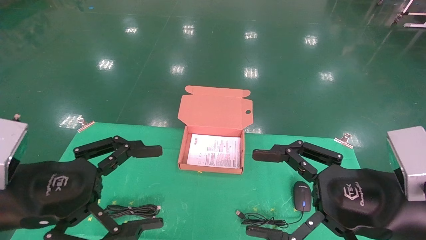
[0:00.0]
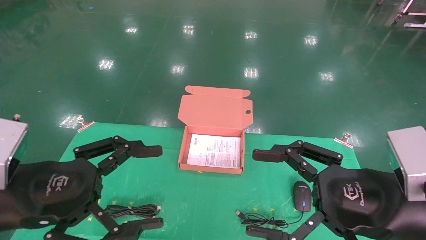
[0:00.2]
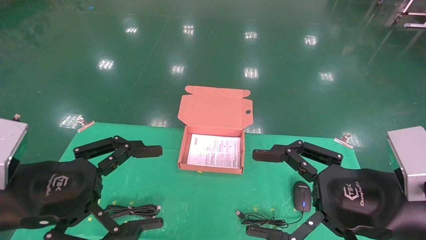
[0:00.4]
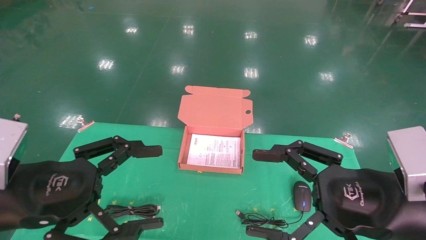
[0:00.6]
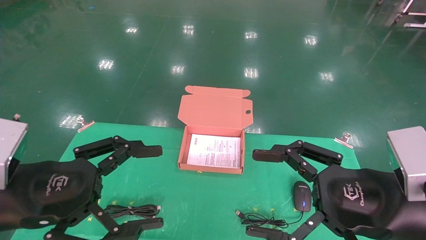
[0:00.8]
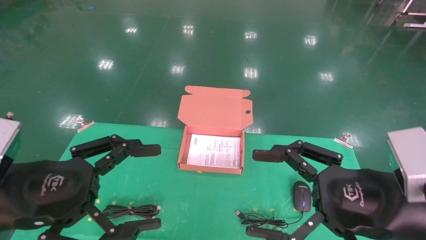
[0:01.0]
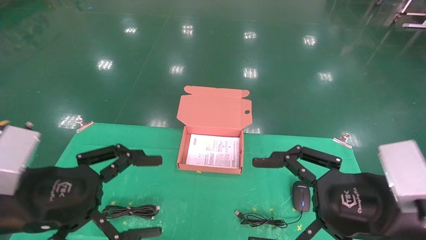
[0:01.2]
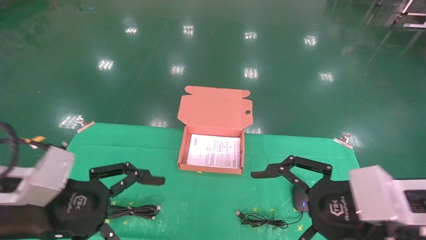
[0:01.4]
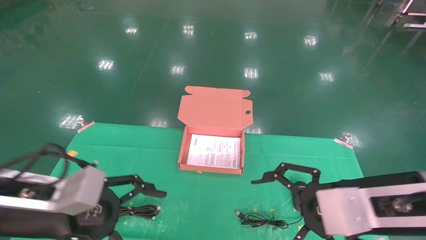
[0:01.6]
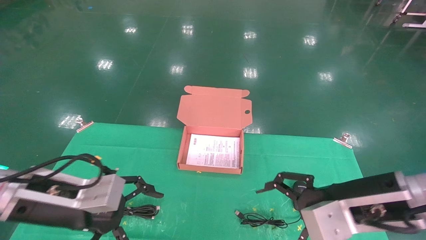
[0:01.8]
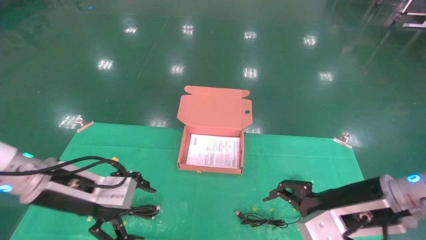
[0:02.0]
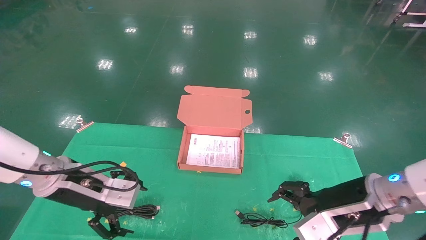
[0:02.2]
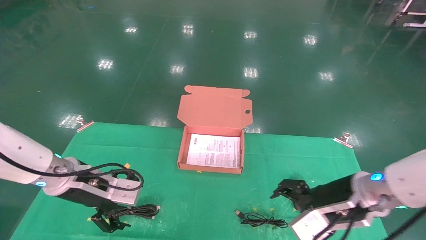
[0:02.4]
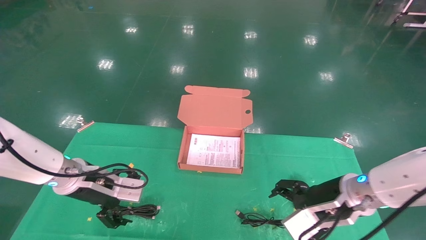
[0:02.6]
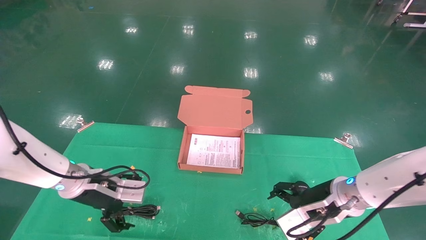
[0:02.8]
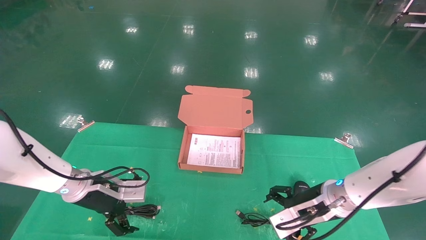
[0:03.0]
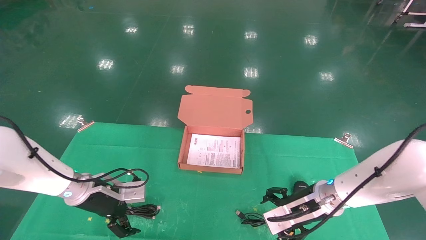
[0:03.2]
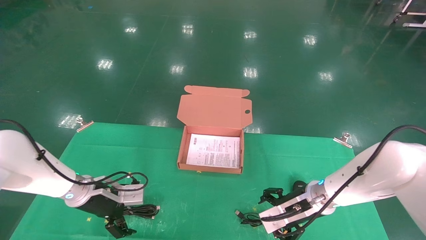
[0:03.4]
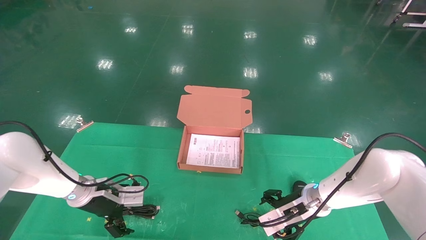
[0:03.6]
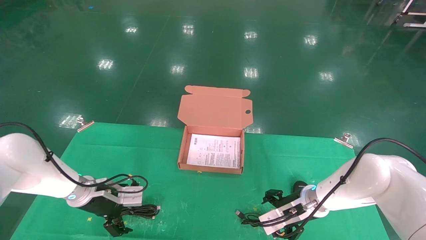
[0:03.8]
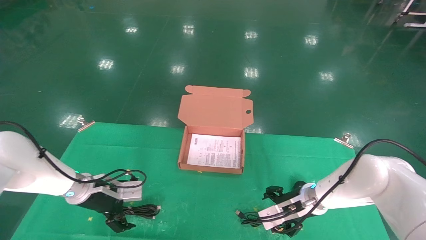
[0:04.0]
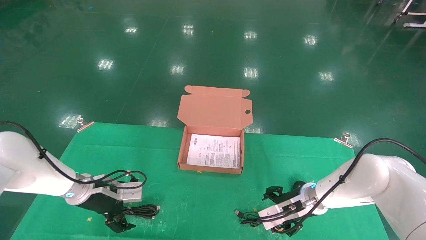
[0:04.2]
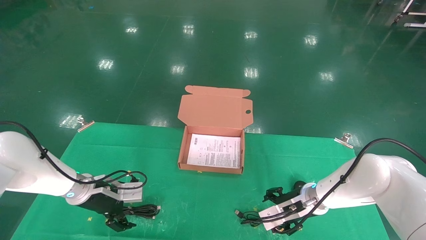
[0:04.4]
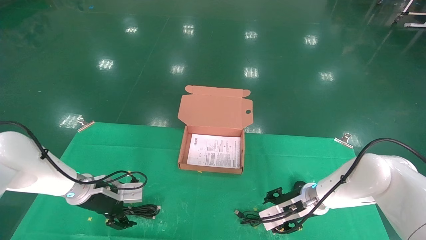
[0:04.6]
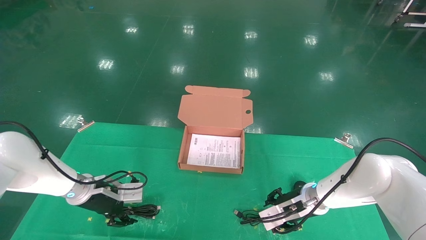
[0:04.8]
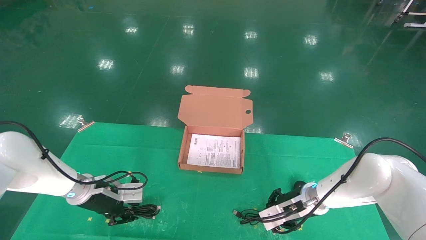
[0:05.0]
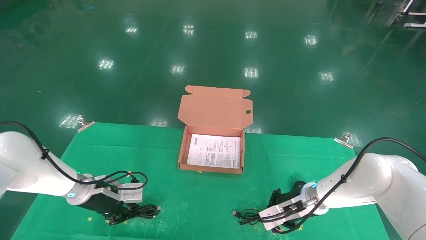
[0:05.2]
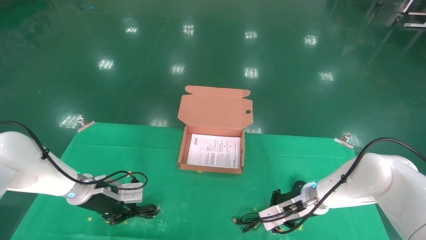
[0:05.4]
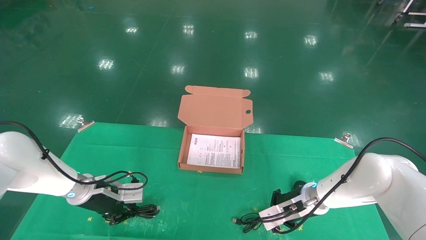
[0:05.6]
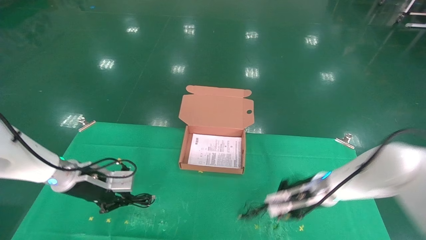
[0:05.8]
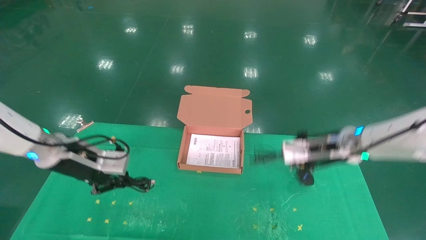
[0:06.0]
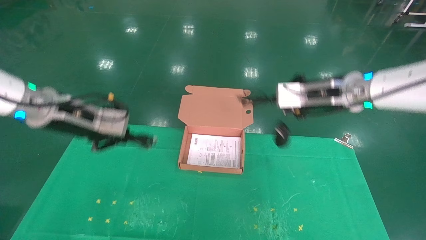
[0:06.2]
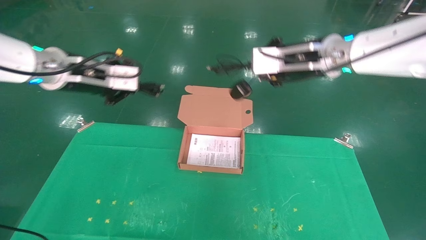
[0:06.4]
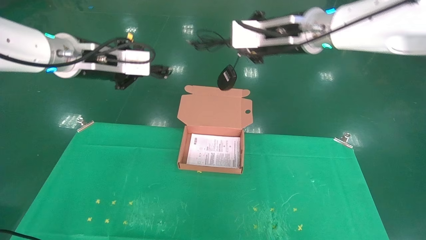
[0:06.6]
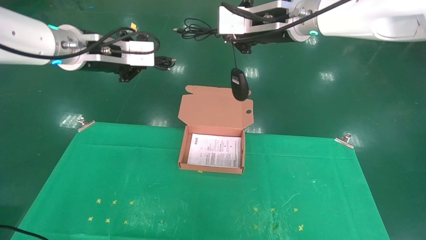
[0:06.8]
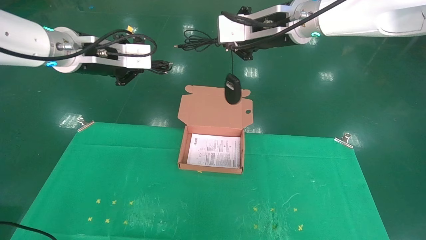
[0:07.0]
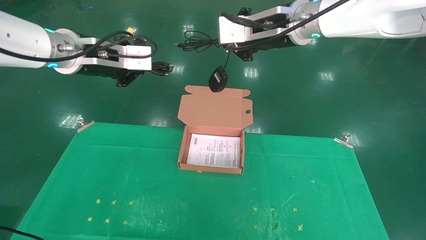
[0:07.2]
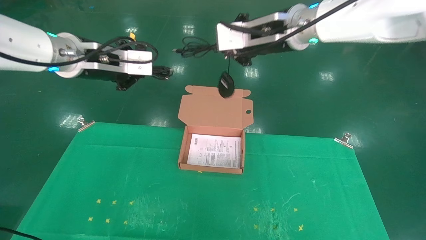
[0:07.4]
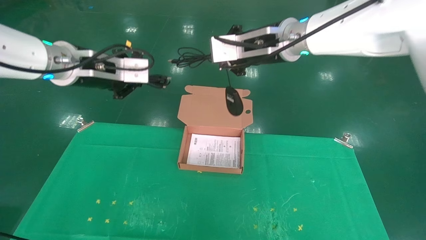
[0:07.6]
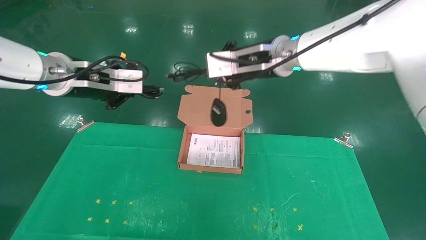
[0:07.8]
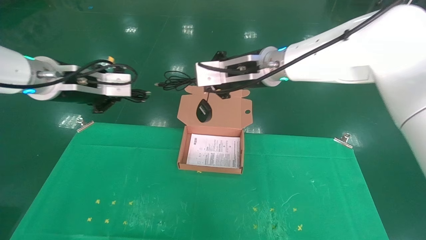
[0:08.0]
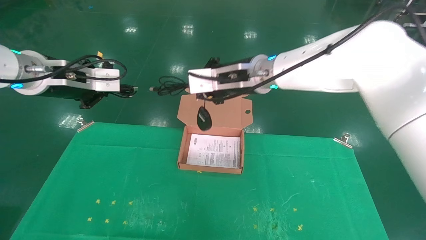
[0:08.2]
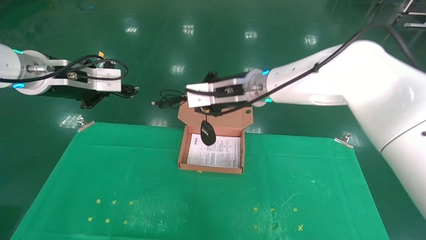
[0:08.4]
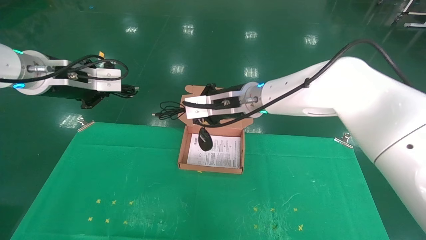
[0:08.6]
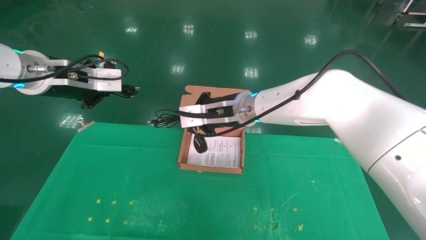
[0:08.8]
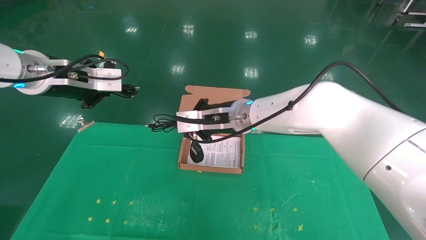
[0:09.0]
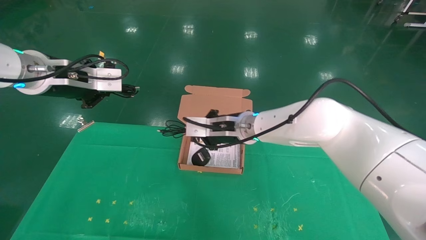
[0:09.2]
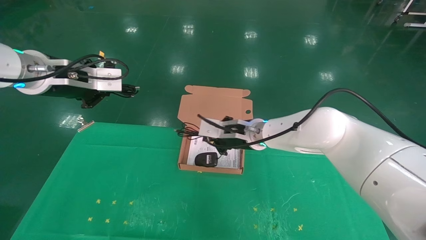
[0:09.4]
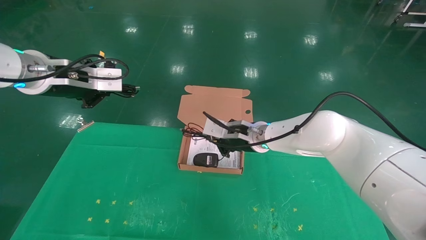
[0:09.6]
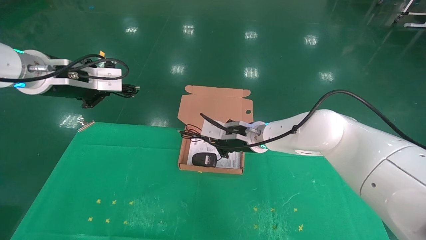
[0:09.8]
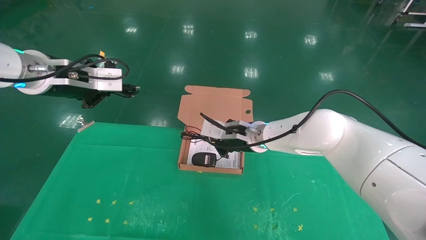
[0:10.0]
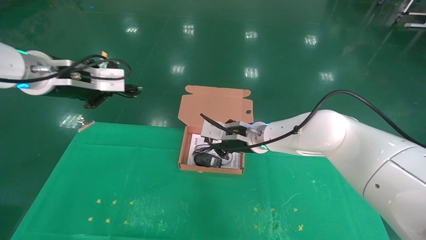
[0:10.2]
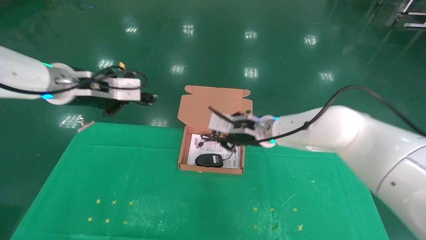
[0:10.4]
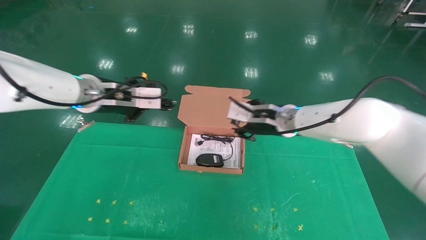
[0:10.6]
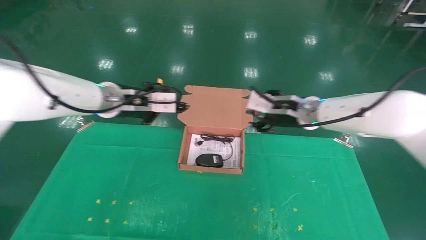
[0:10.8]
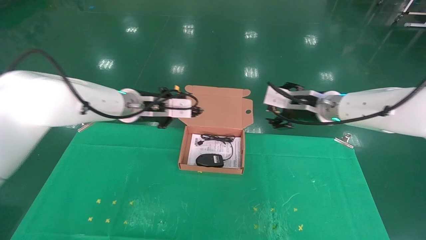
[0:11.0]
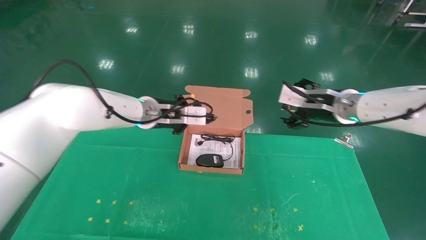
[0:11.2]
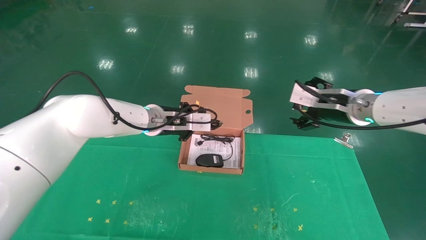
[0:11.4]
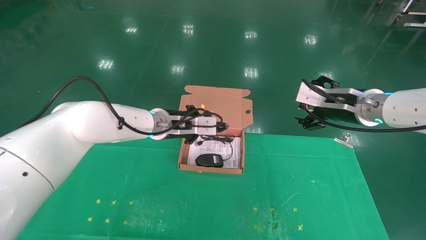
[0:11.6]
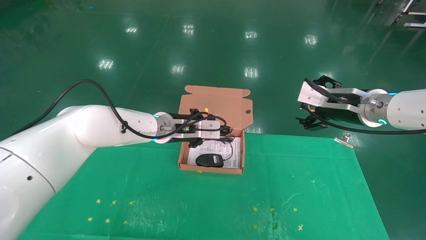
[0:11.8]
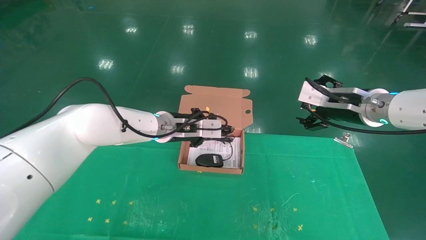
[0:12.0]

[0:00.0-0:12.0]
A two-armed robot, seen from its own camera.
Task of the whole recording: grasp data cable left put into box grasp mouse right put into box.
Step, 0:01.2 to 0:05.4: Grab and pick up both the mouse and power cord from the accessory packaging area at the same time.
0:00.0 to 0:01.6: The left gripper goes roughly 5 cm forward.
0:01.6 to 0:03.0: Both grippers move forward and downward, some 15 cm.
0:03.0 to 0:04.4: The right gripper is displaced forward and downward by some 10 cm.
0:04.4 to 0:06.0: The grippers both shift upward by roughly 15 cm. The left gripper closes up. Meanwhile the right gripper closes.
0:06.0 to 0:07.6: The left gripper shifts roughly 15 cm upward and to the right; the right gripper travels upward and to the left by approximately 25 cm.
0:07.6 to 0:09.0: The right gripper travels downward and to the left by about 15 cm.
0:09.0 to 0:10.4: The right gripper travels to the right by roughly 5 cm.
0:10.4 to 0:12.0: The right gripper travels to the right and upward by roughly 20 cm, and opens; the left gripper heads to the right, downward and forward, covering roughly 20 cm.

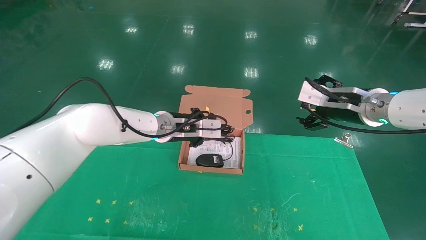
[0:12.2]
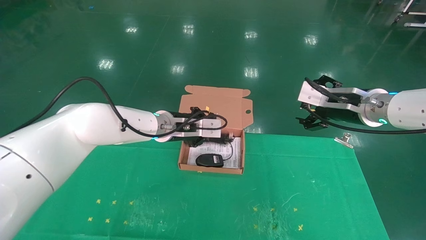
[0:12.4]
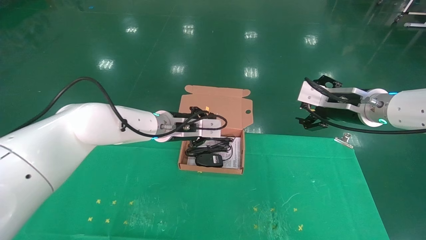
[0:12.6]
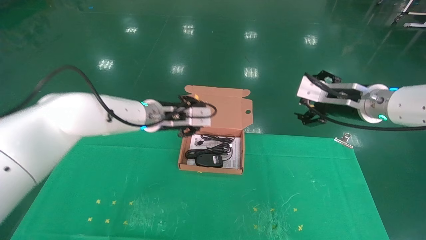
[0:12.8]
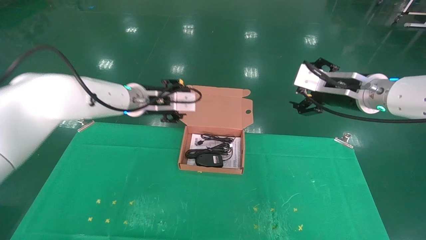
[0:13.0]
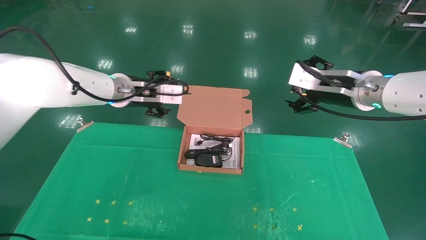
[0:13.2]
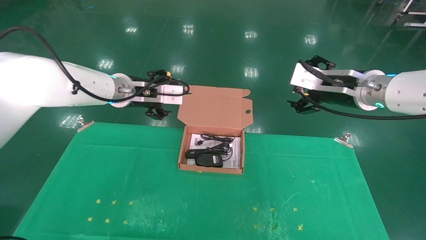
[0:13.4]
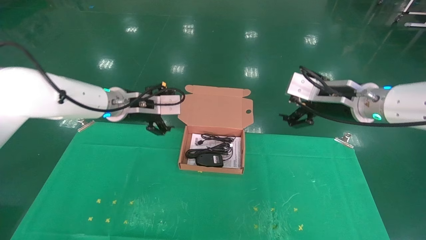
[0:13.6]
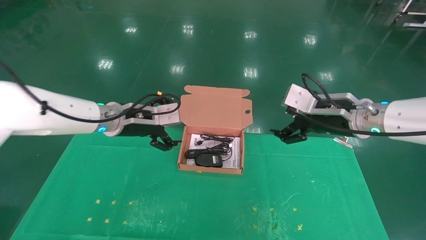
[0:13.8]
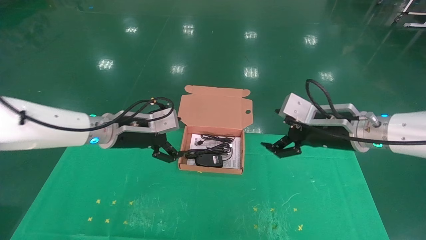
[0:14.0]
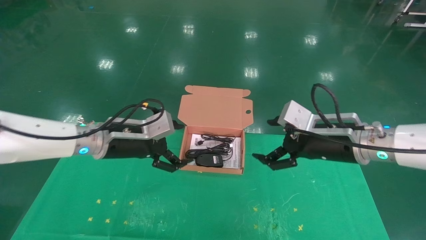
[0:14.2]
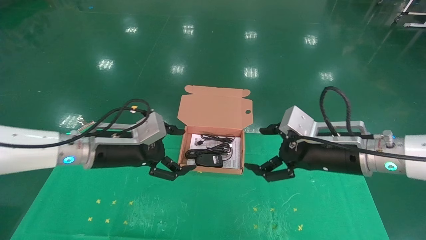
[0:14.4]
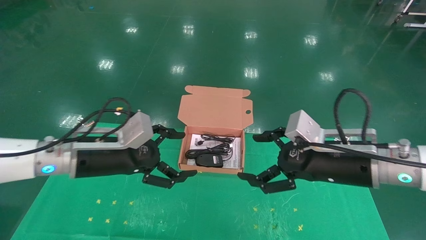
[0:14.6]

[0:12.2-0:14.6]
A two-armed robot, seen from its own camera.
Task of the whole recording: grasp data cable left put into box grasp mouse right put into box.
0:12.2 to 0:13.4: The left gripper heads to the left and upward, covering approximately 10 cm, and opens.
0:13.4 to 0:14.6: The right gripper moves downward and backward, about 10 cm. Meanwhile the left gripper moves backward and downward, approximately 15 cm.

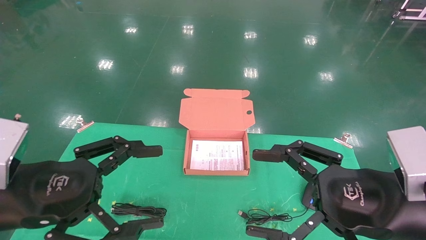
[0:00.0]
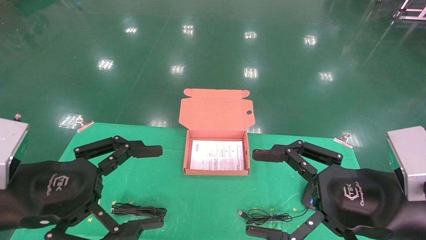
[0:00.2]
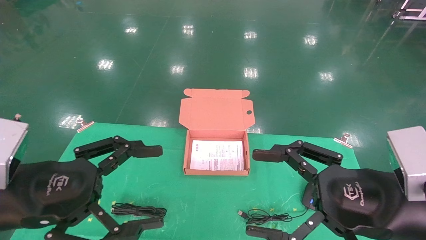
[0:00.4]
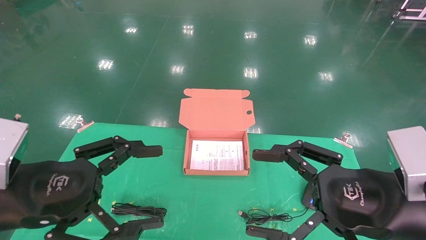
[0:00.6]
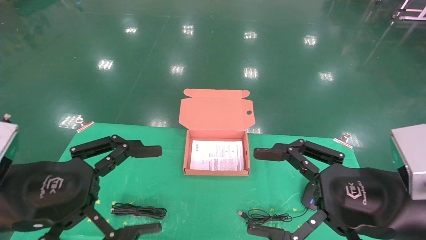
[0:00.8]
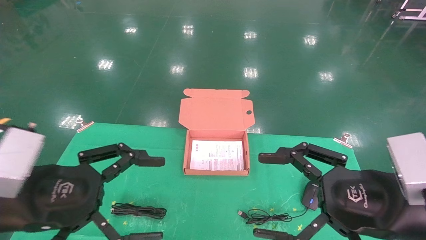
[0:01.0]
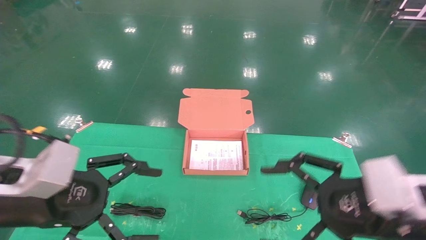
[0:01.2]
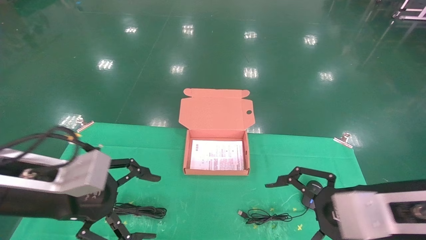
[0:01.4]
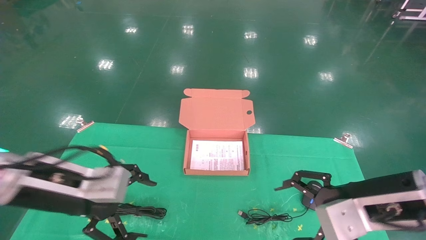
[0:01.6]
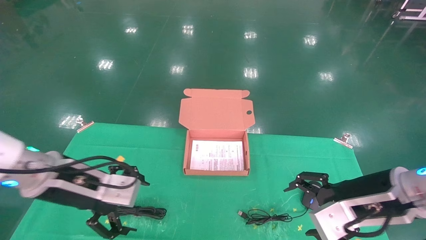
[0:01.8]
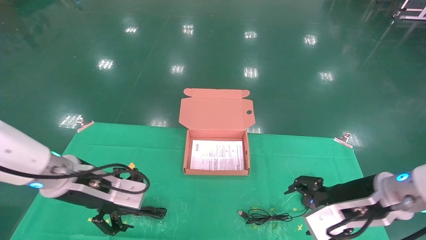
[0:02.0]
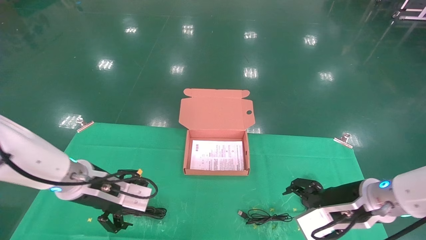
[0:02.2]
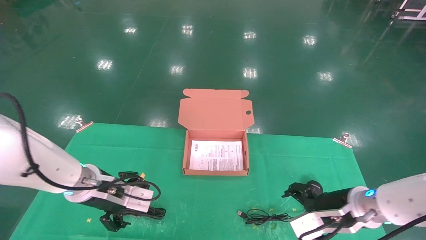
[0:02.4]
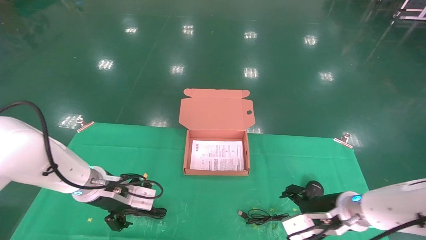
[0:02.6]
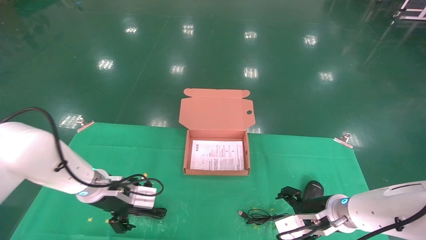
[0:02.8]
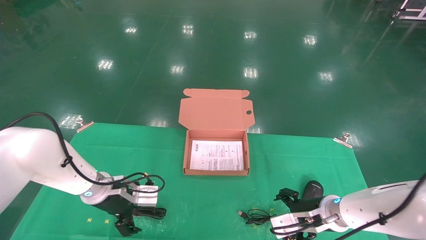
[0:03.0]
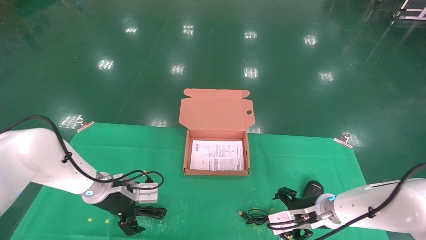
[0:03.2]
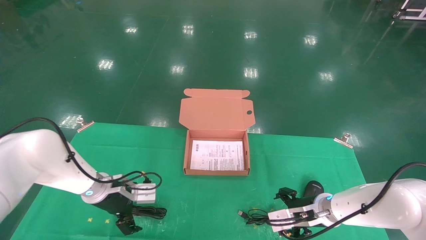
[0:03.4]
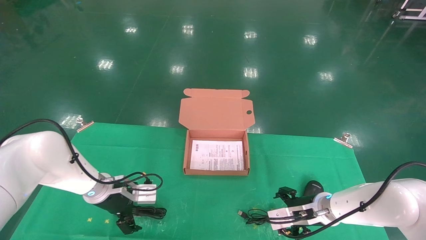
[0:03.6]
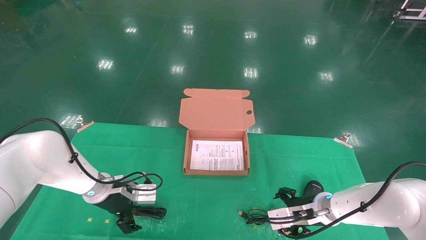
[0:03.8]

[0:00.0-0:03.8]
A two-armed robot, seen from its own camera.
Task of the whole recording: grasp data cable left put into box grasp mouse right put into box.
0:01.2 to 0:02.6: Both grippers move forward and downward, about 20 cm.
0:02.6 to 0:03.8: Both grippers travel together forward, roughly 5 cm.
